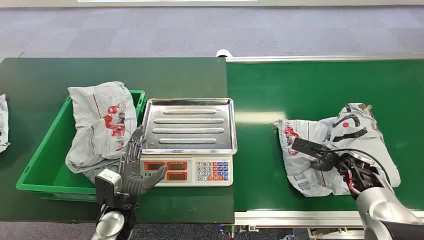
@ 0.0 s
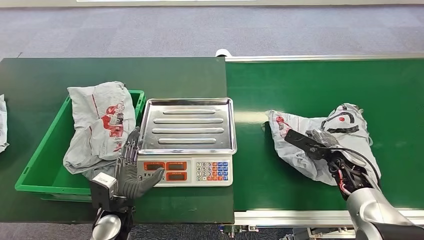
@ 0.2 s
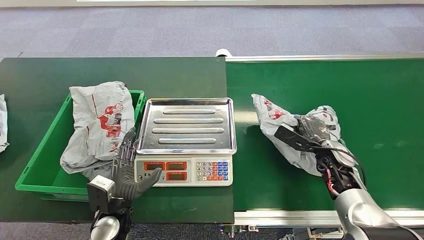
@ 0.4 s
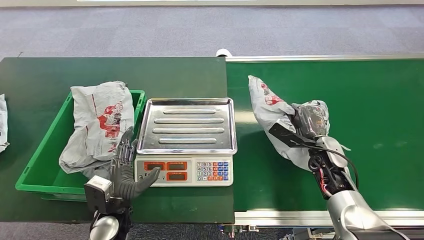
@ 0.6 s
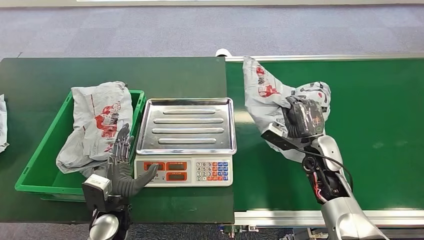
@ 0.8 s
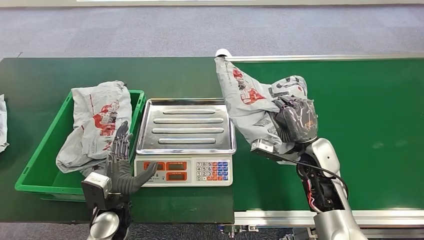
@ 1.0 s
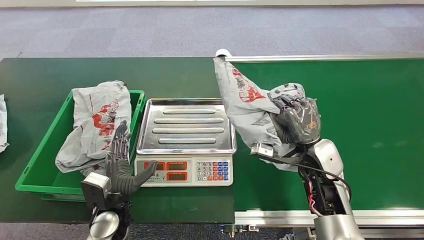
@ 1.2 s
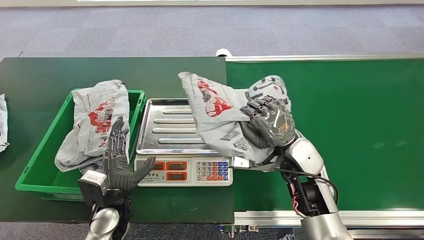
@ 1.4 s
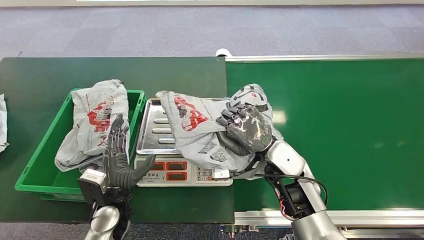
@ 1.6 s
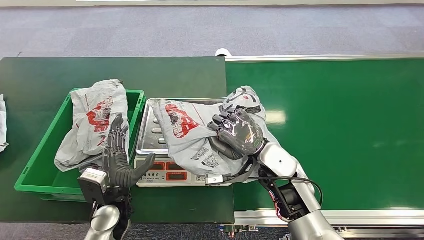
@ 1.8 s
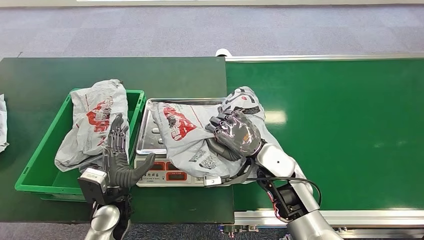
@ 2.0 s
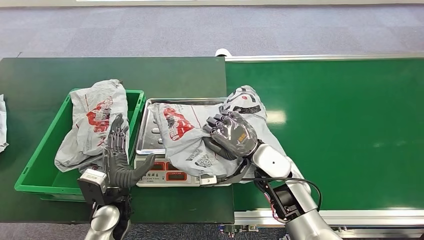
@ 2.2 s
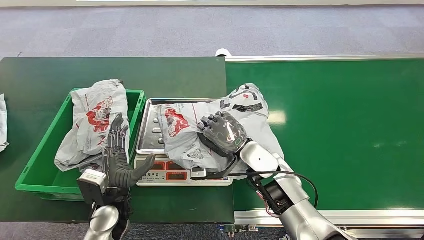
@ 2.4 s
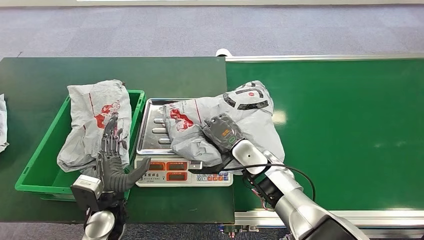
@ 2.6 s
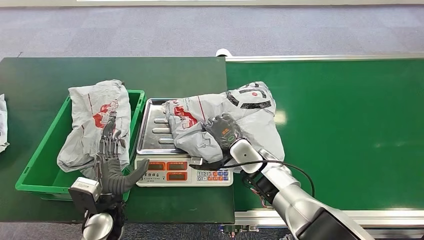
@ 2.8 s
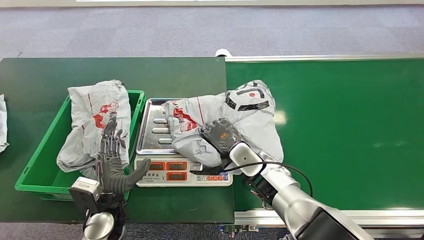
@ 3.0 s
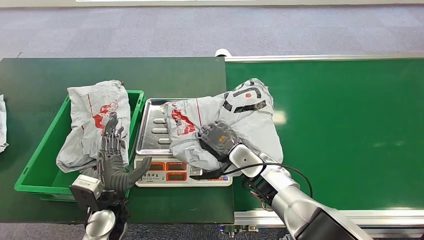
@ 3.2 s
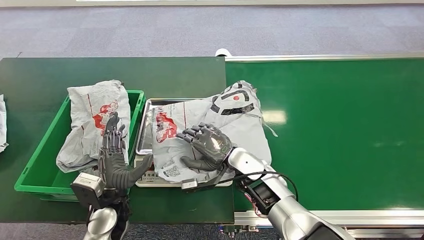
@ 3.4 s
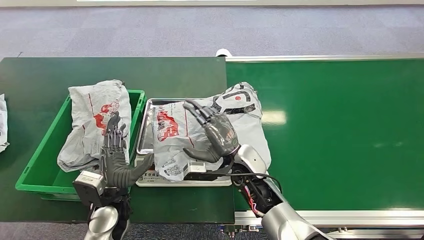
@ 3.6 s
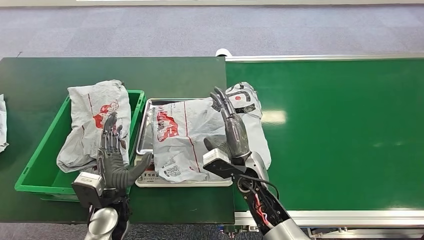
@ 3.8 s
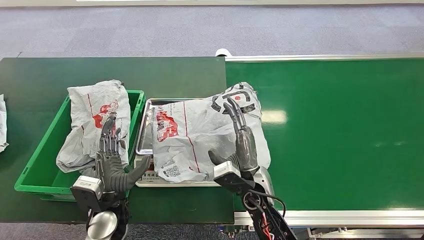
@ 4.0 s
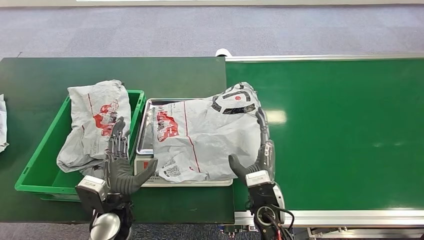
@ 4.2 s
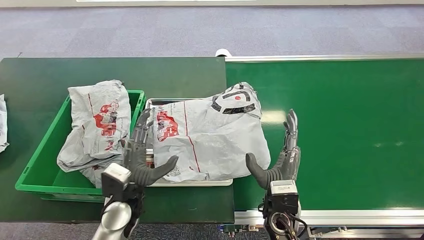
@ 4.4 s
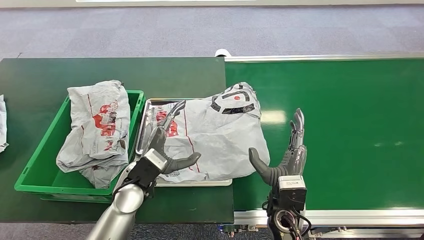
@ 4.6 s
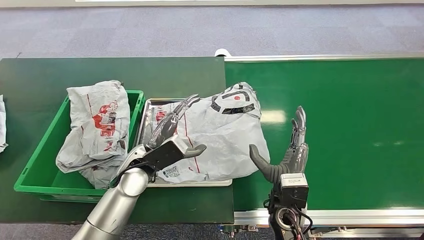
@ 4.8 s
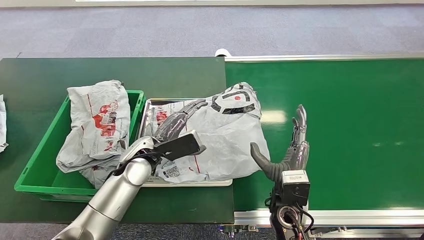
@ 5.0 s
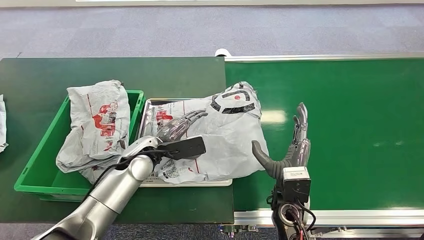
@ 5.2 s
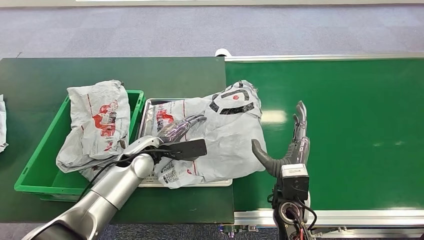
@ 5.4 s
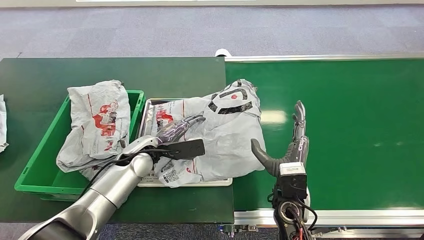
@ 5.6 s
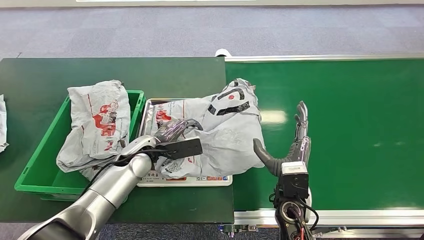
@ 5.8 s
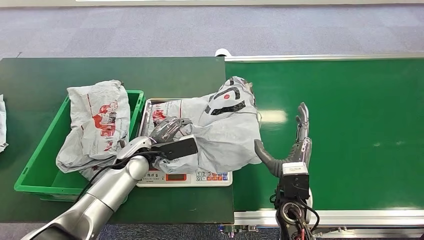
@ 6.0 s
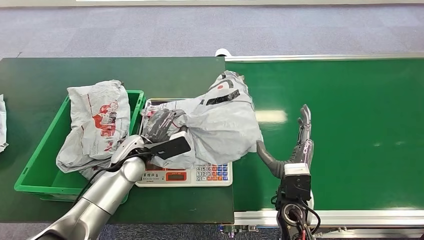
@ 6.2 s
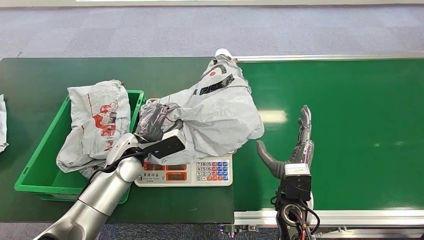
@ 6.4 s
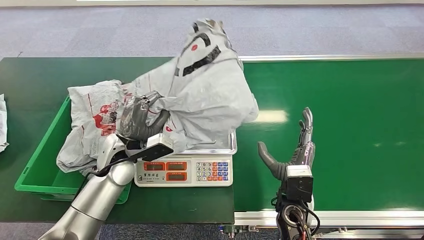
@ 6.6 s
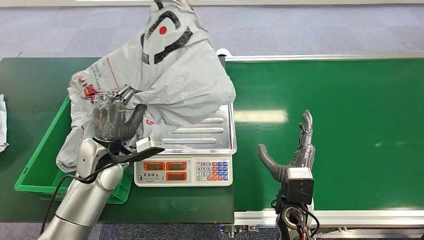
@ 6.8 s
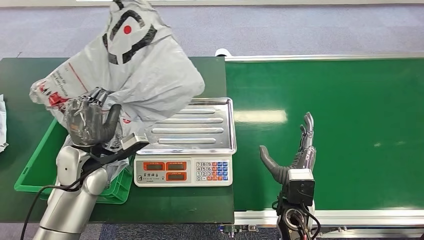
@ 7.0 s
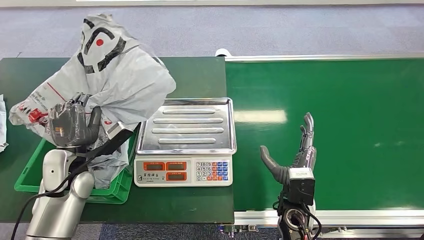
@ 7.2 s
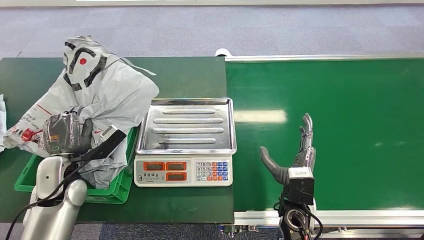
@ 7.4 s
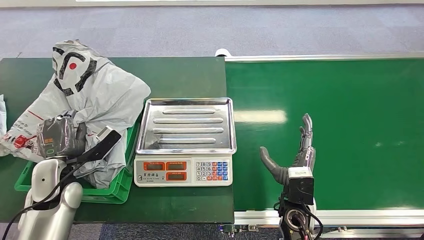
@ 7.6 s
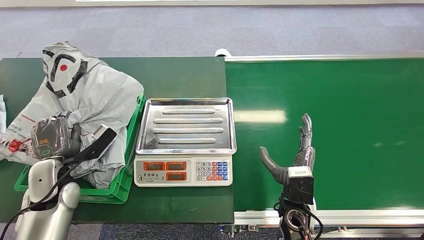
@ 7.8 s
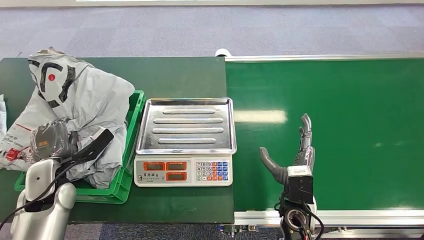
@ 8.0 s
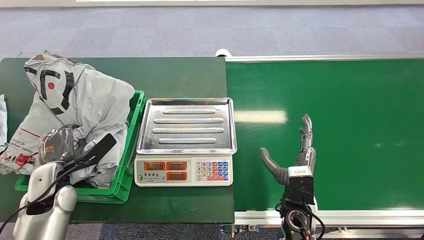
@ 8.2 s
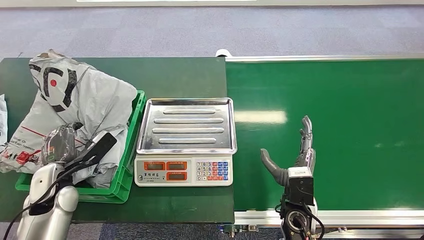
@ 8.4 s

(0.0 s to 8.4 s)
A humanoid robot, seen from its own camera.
Step, 0.0 s - 1.0 s: Pick up the package from the conveyor belt.
Step, 1.4 s - 3.4 s: Place the package onto the inbound machine.
Step, 6.0 s - 7.0 s: Pick up the package from the inbound machine.
Step, 7.4 s - 8.4 s: Place the package into the parcel locker.
1.4 s - 2.8 s: The right hand travels to the left and downward by about 10 cm.
2.8 s - 4.2 s: The right hand shifts approximately 10 cm backward.
4.2 s - 5.6 s: The left hand shifts approximately 15 cm forward, while the right hand travels to the right by about 5 cm.
